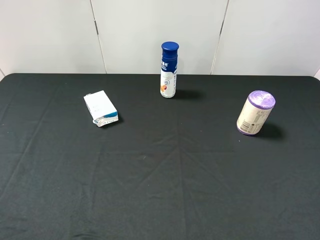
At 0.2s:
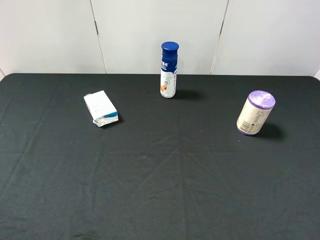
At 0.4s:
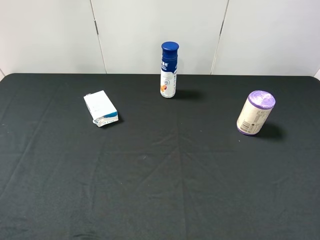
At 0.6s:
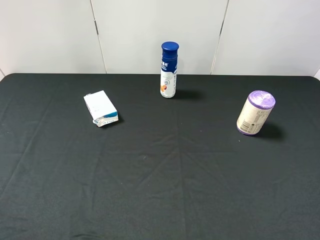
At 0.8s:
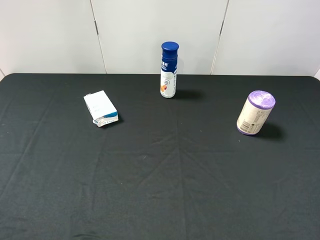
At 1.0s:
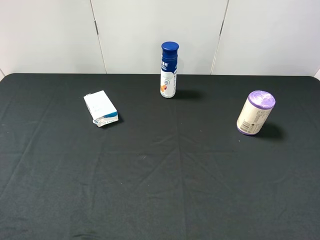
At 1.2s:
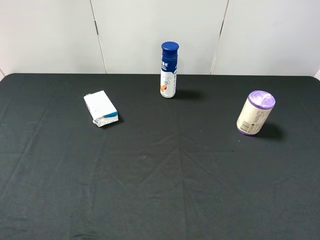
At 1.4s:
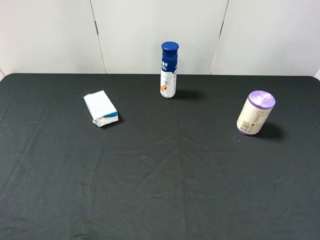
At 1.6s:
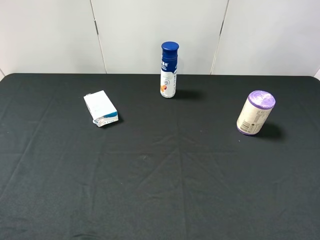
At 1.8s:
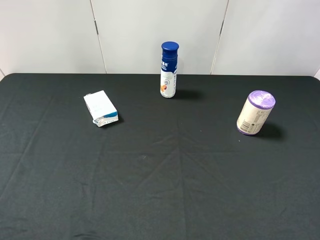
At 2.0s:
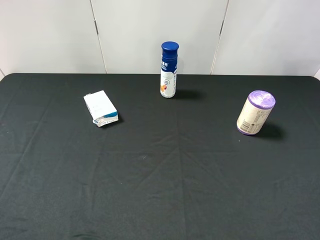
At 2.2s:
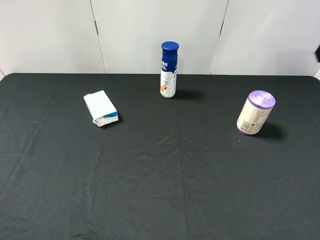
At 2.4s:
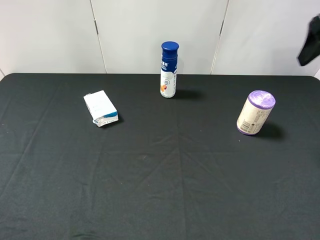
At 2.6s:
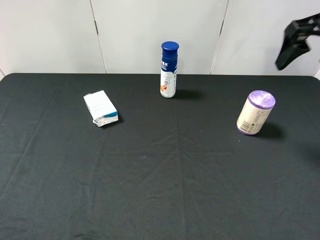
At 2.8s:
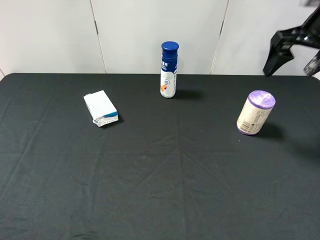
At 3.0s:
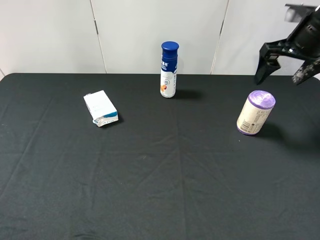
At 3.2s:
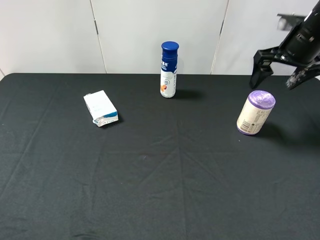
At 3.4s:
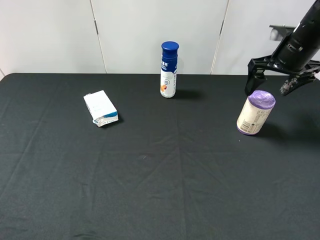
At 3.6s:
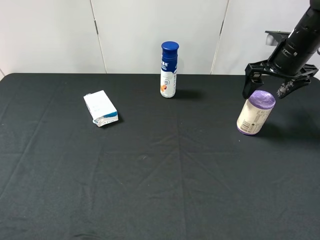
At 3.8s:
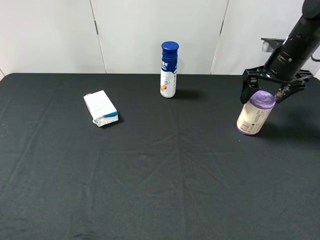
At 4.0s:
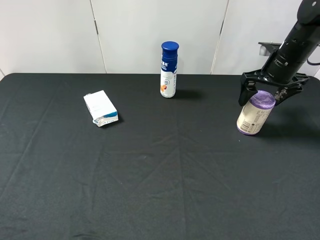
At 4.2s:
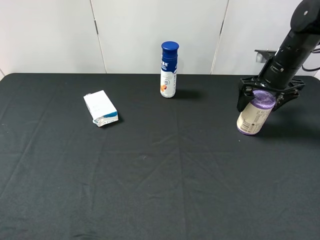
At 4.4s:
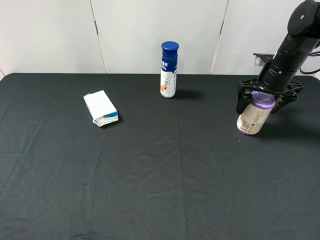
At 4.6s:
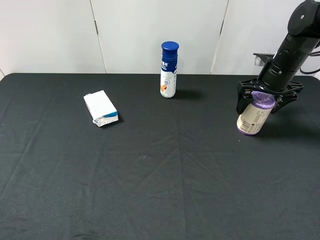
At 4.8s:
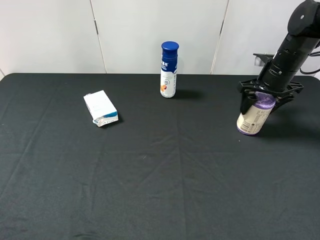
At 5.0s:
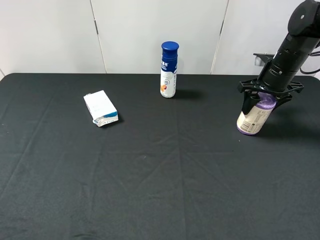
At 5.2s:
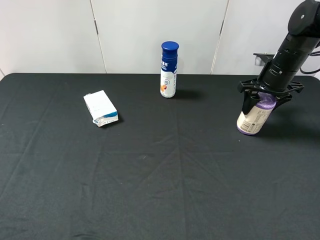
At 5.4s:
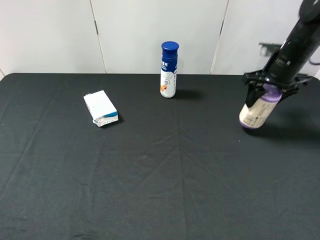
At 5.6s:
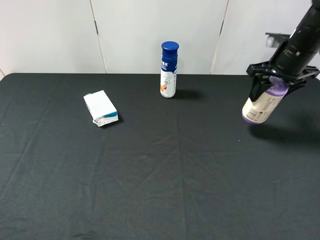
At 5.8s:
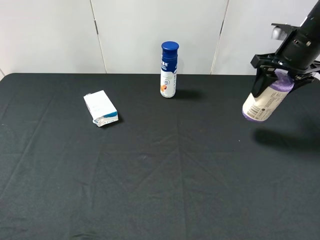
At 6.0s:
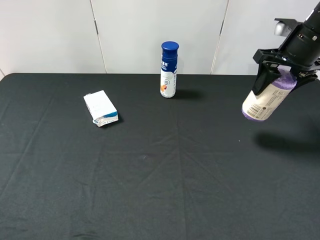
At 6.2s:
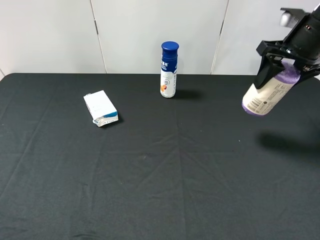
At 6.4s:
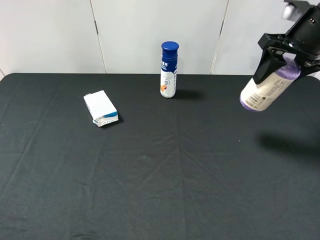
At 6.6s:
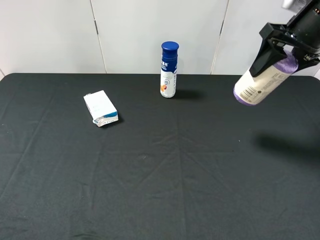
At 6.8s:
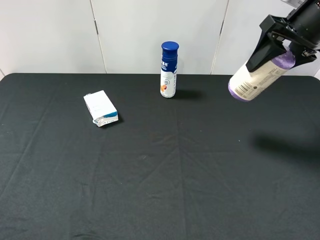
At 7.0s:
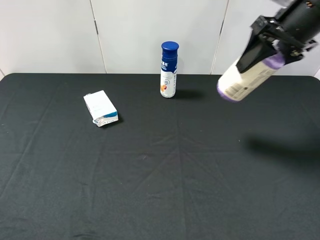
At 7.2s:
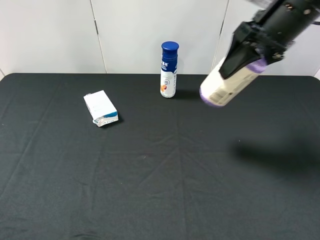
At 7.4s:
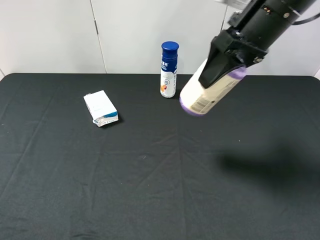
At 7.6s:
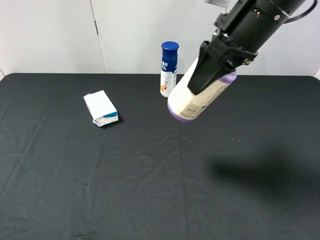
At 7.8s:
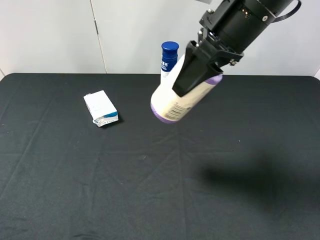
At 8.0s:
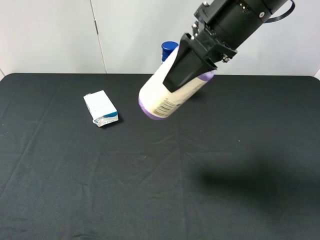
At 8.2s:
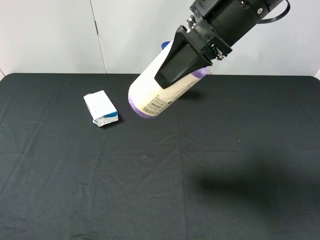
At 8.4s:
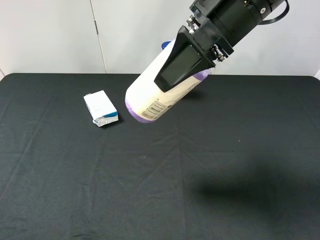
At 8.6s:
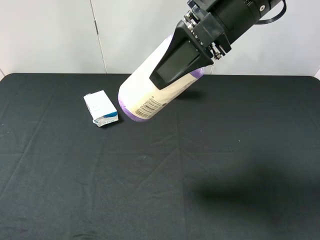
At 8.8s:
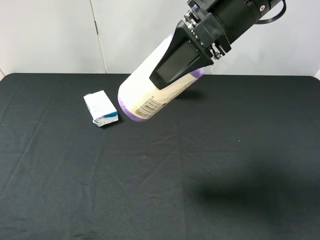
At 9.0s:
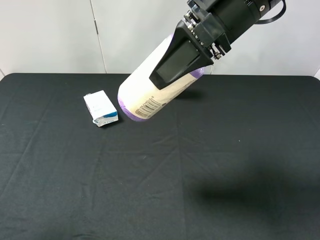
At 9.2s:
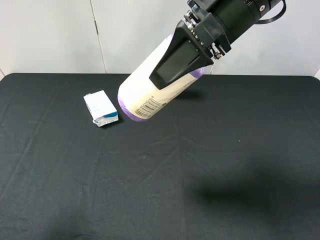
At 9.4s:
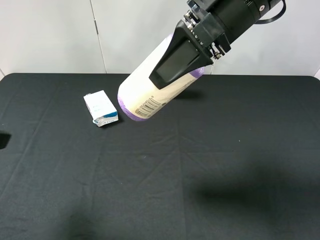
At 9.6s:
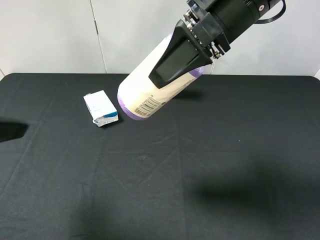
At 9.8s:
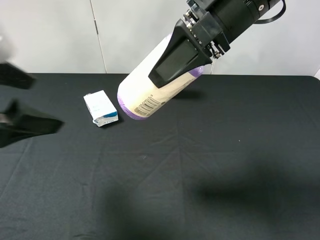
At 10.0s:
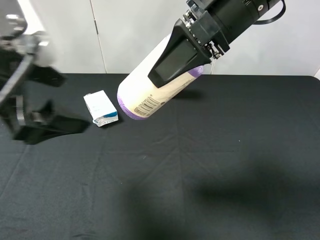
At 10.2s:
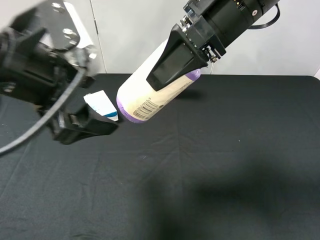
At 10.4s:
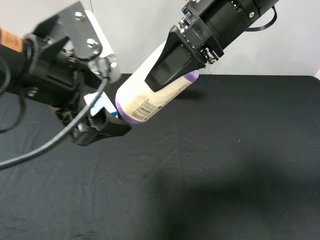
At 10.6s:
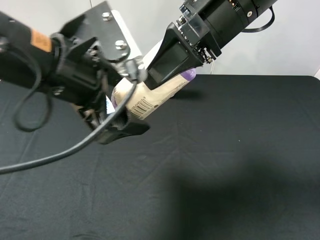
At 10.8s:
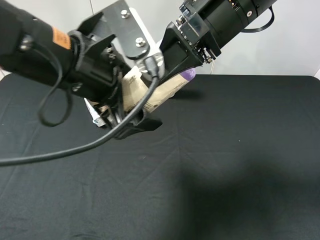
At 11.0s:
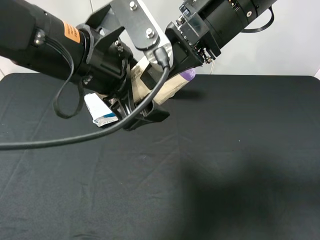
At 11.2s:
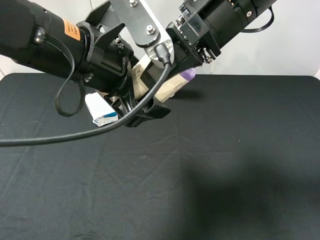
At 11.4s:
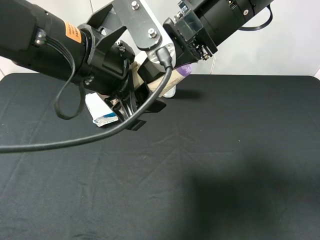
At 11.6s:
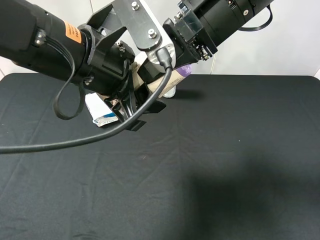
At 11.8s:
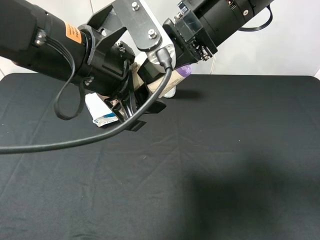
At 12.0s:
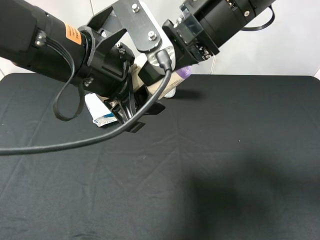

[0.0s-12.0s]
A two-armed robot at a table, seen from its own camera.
Task of the whole recording: use the right gripper to pick up the item and transfer it from the right gripper to the left gripper.
Step, 0.0s to 4.8s: Use the right gripper to grab the purple garbage bag on the right side of the table.
1.6s to 3.0s: The right gripper travels forward by roughly 25 cm.
3.0s to 4.4s: The right gripper moves downward, about 10 cm.
4.4s to 6.0s: The right gripper moves upward, approximately 10 cm, and closes its fingers.
6.0s to 7.6s: The right gripper shifts about 15 cm to the left and backward.
7.6s to 9.0s: The left gripper goes approximately 5 cm forward.
9.0s to 10.4s: The left gripper travels to the right and forward by some 20 cm.
10.4s to 12.0s: The right gripper opens its fingers. Meanwhile the left gripper ends up about 5 cm from where it was, and closes up.

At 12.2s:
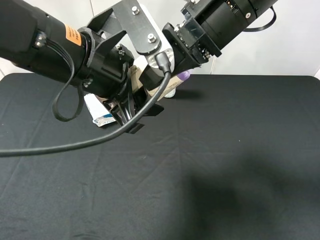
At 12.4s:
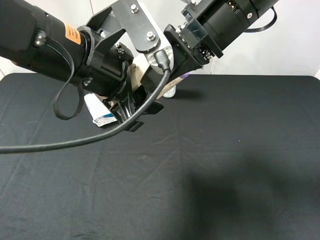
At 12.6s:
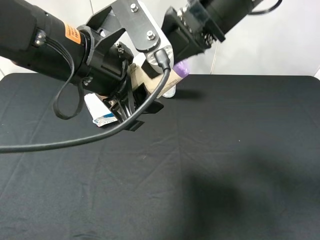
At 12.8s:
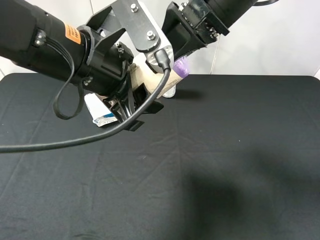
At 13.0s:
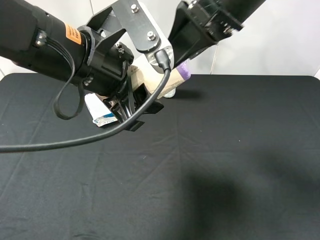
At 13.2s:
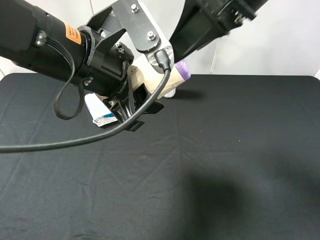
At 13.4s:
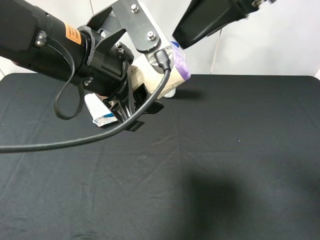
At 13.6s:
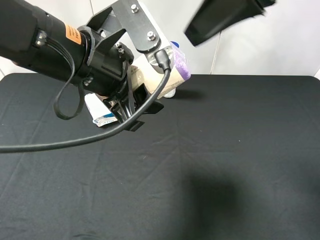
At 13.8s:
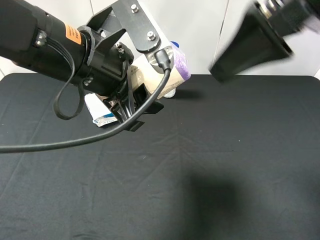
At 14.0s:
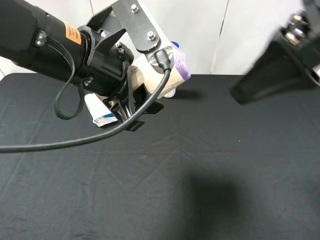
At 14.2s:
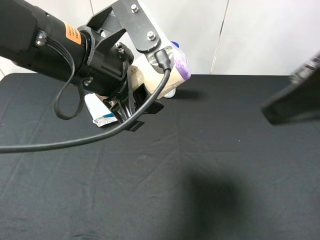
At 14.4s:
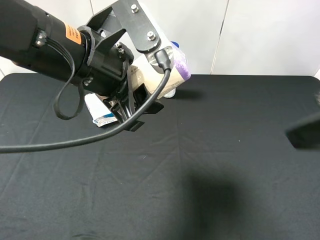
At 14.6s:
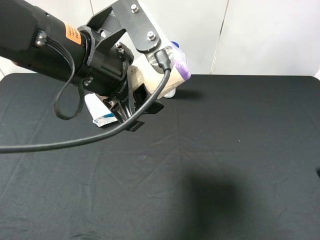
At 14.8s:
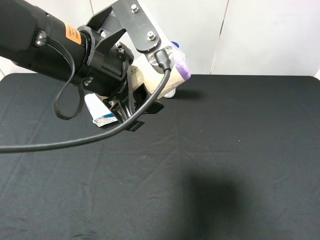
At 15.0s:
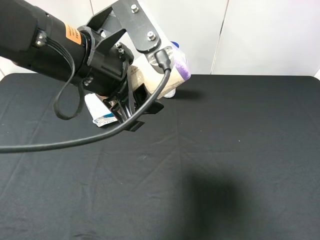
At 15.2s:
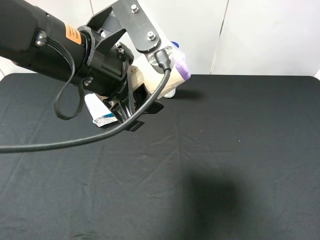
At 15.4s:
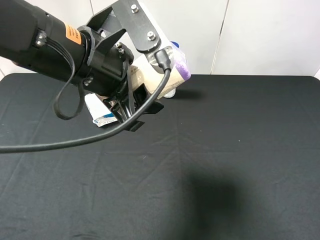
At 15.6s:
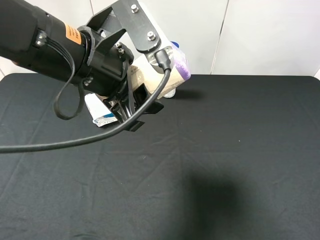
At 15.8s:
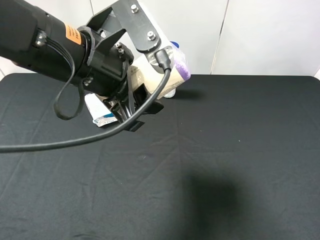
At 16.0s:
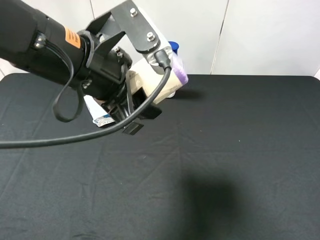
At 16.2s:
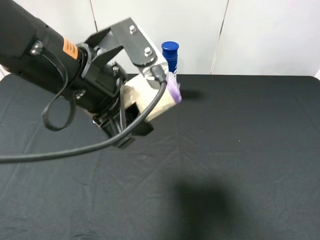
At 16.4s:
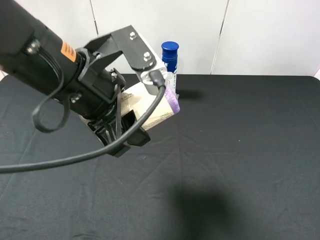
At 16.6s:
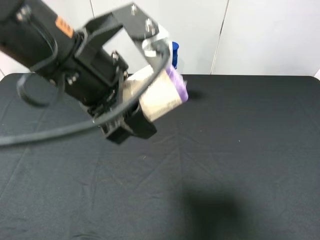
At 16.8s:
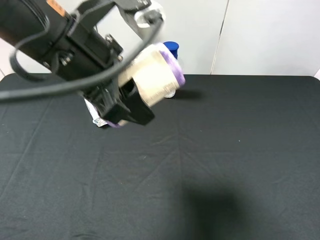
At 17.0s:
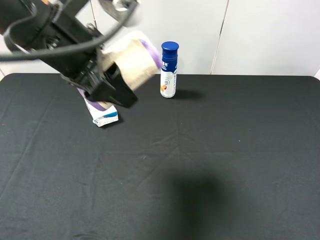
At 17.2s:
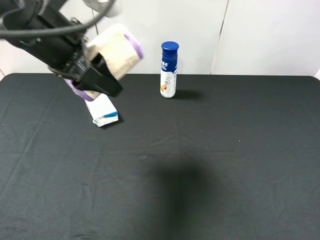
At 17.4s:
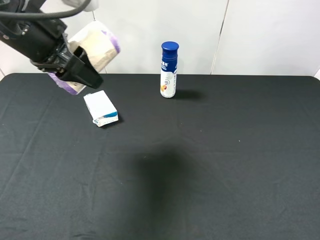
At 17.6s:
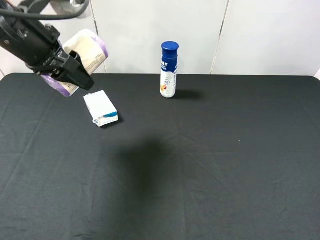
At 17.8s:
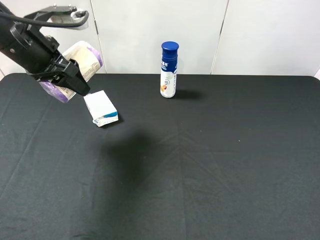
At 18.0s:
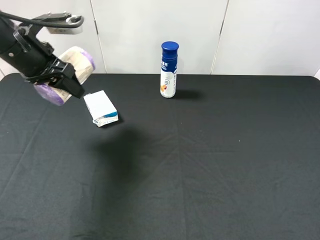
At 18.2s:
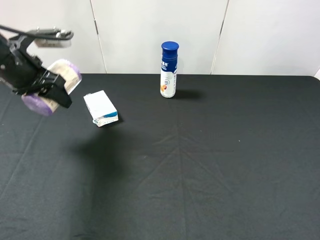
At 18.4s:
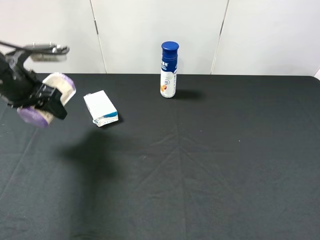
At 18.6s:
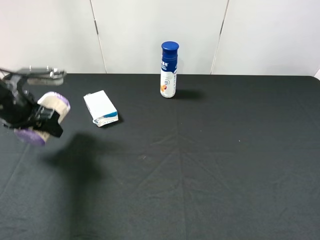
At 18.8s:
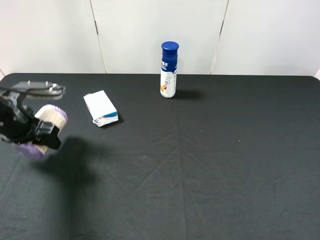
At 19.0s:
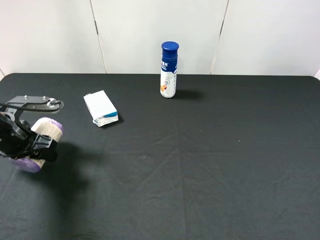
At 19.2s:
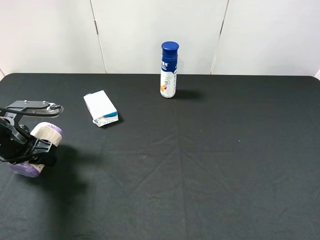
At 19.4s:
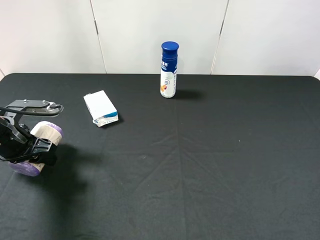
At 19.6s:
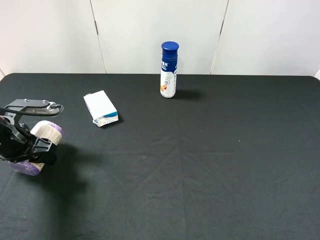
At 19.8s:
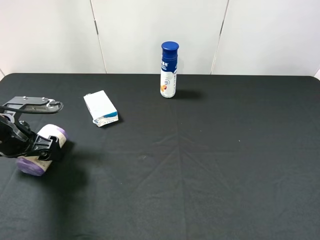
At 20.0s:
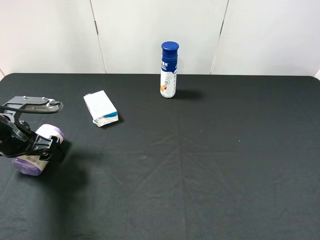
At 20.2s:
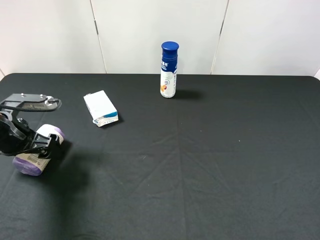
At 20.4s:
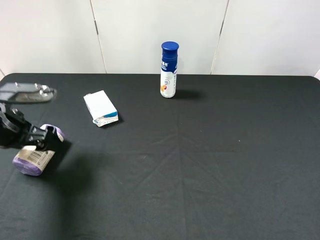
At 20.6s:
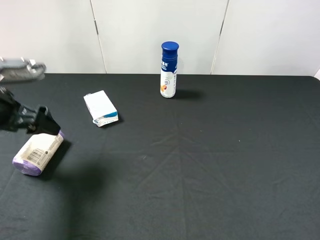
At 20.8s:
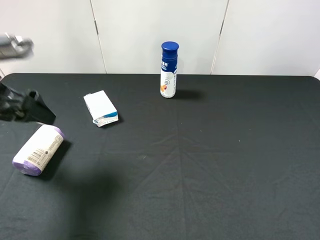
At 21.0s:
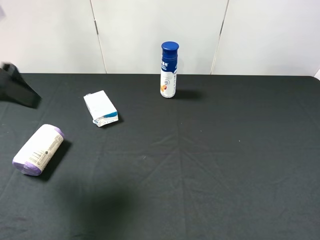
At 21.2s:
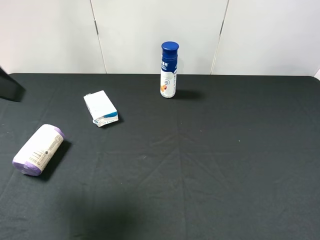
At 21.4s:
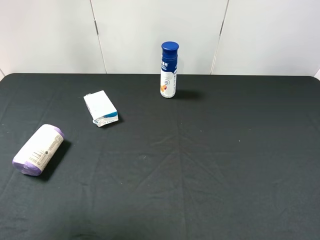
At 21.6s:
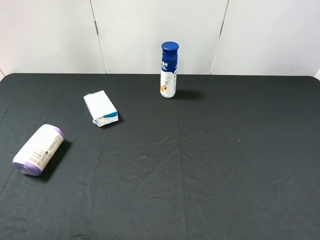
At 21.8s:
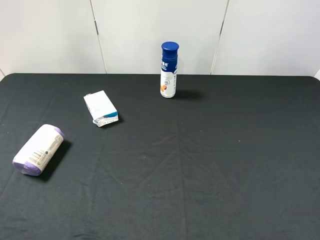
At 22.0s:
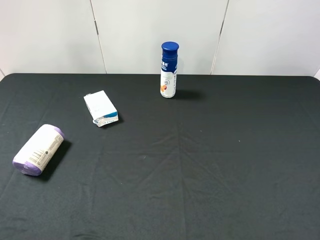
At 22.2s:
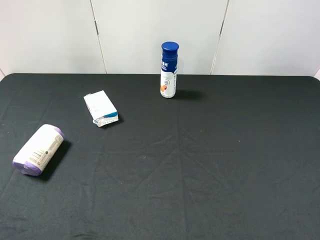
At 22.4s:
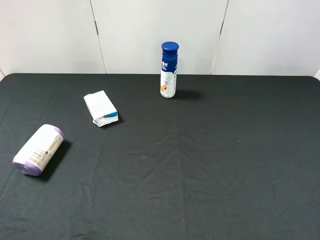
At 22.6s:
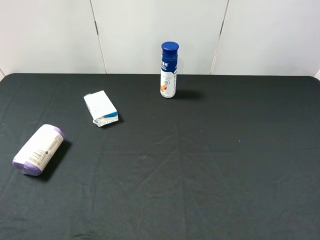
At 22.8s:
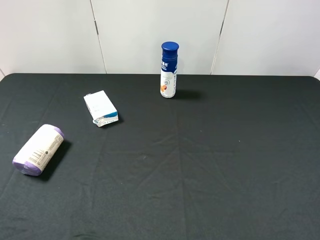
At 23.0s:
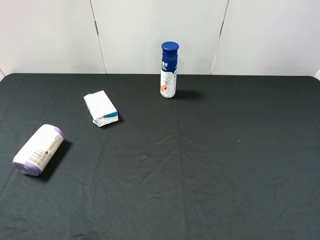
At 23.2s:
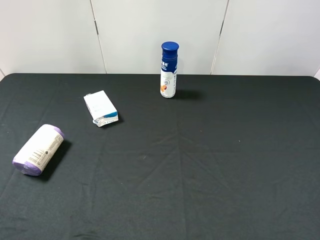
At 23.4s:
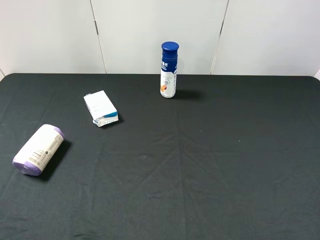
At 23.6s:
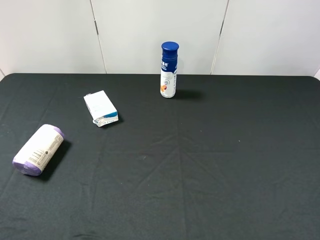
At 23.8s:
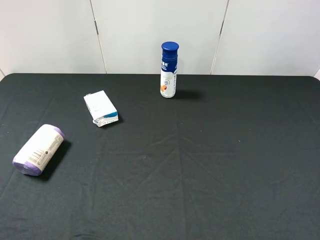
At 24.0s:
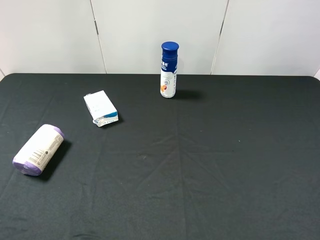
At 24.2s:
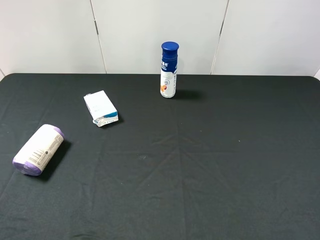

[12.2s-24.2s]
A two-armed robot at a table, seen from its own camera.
Task of the whole recording: use the right gripper to pick up the item and transfer it from the right gripper to the left gripper.
Step, 13.0s to 20.0s: The left gripper places purple garbage bag on the left side of the table.
12.2s to 13.8s: The right gripper travels backward, to the right and upward by some 10 cm.
13.8s to 15.2s: The right gripper is displaced backward, to the right and downward by some 25 cm.
16.6s to 18.2s: The left gripper shifts roughly 20 cm to the left, forward and downward.
18.2s to 19.8s: The left gripper is displaced downward and backward by some 15 cm, and opens its fingers.
19.8s to 21.2s: The left gripper shifts roughly 20 cm upward.
21.2s to 22.6s: The left gripper moves backward, roughly 20 cm.
22.6s to 24.2s: Both grippers stay about where they are.
